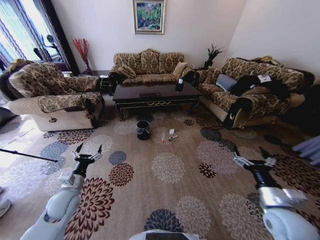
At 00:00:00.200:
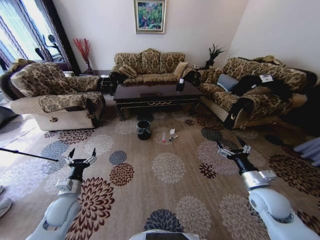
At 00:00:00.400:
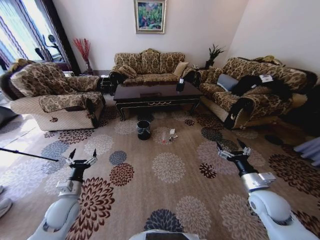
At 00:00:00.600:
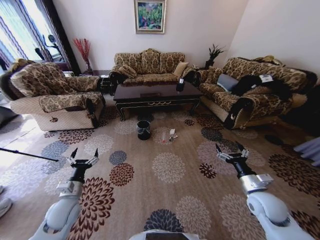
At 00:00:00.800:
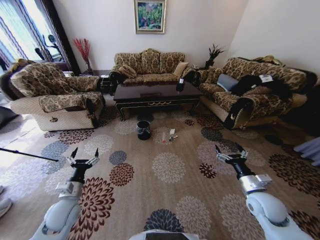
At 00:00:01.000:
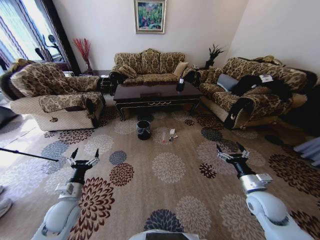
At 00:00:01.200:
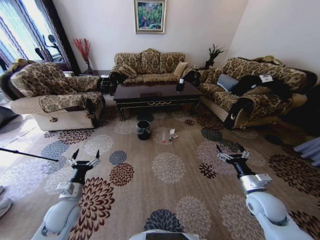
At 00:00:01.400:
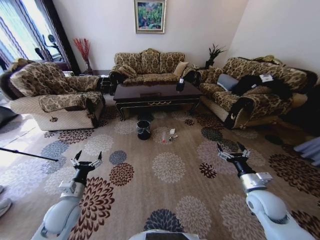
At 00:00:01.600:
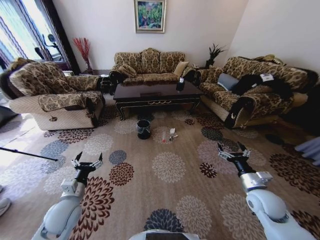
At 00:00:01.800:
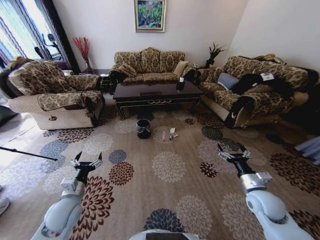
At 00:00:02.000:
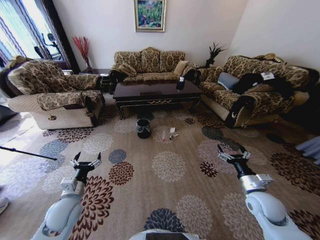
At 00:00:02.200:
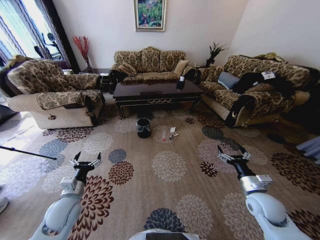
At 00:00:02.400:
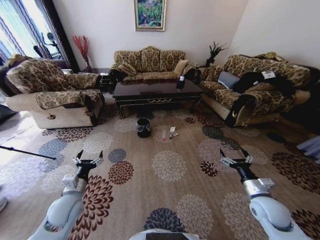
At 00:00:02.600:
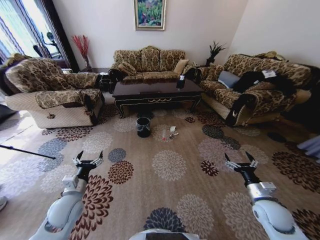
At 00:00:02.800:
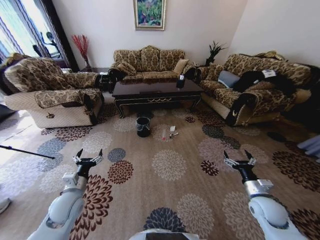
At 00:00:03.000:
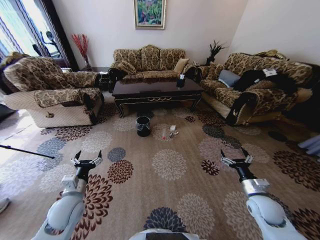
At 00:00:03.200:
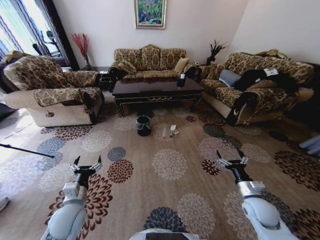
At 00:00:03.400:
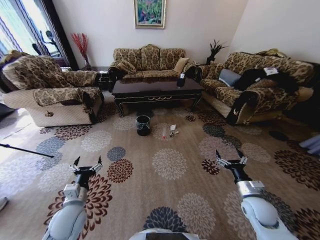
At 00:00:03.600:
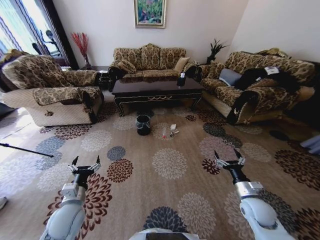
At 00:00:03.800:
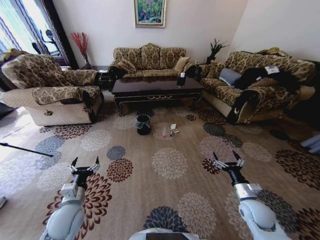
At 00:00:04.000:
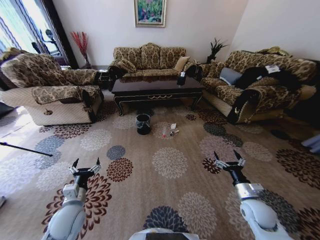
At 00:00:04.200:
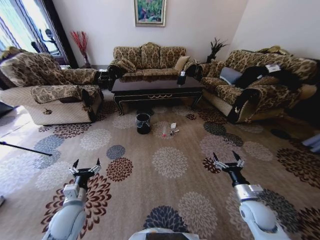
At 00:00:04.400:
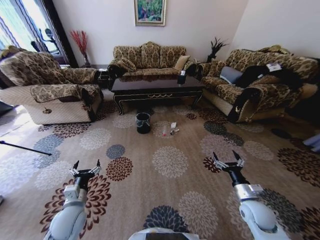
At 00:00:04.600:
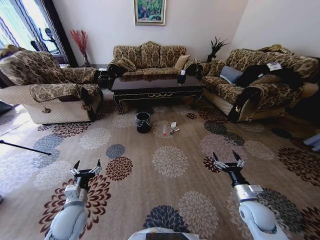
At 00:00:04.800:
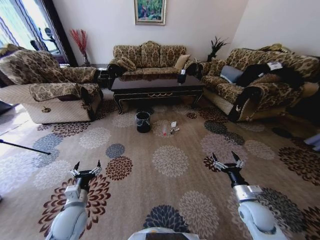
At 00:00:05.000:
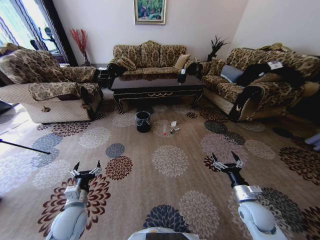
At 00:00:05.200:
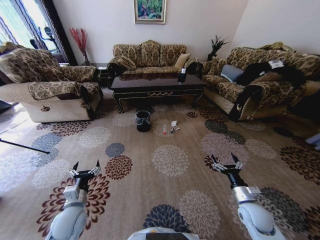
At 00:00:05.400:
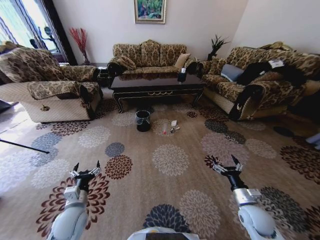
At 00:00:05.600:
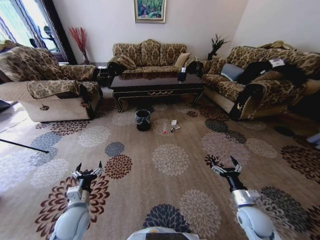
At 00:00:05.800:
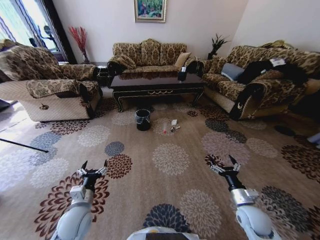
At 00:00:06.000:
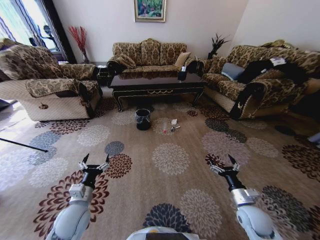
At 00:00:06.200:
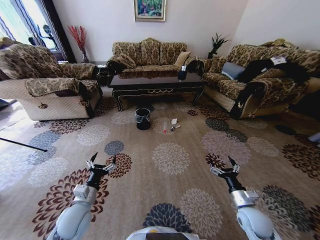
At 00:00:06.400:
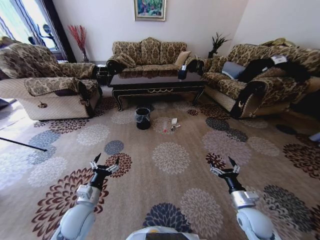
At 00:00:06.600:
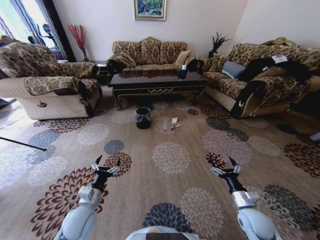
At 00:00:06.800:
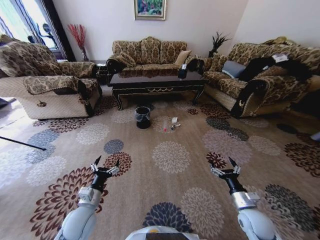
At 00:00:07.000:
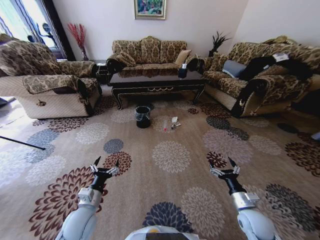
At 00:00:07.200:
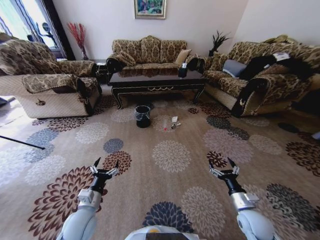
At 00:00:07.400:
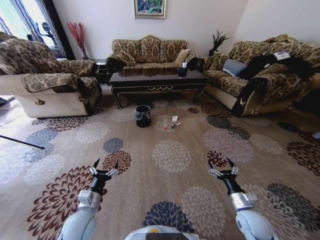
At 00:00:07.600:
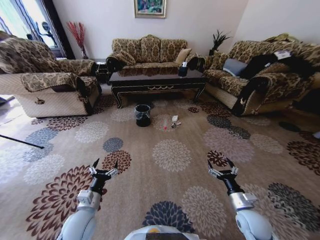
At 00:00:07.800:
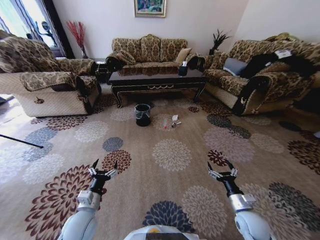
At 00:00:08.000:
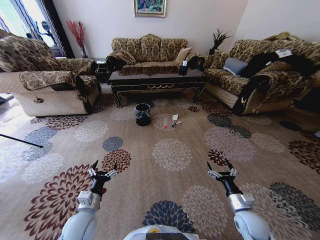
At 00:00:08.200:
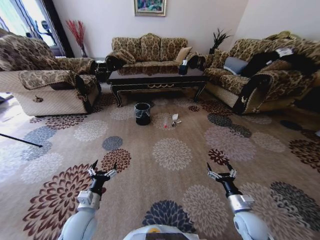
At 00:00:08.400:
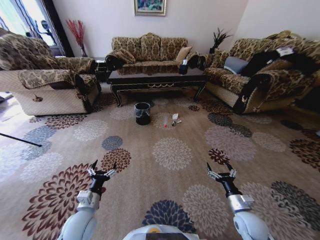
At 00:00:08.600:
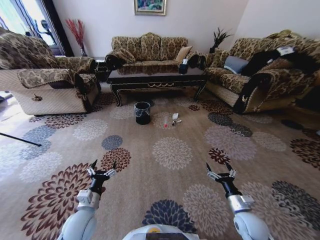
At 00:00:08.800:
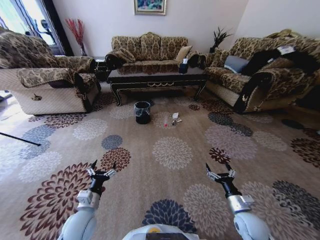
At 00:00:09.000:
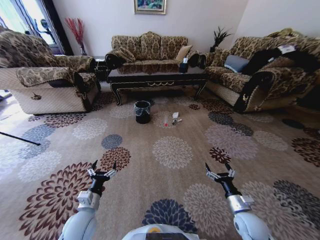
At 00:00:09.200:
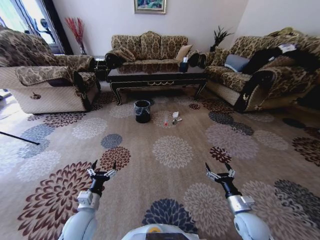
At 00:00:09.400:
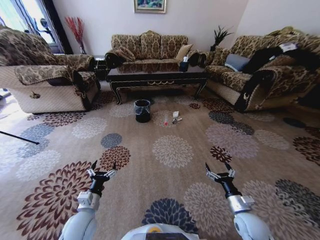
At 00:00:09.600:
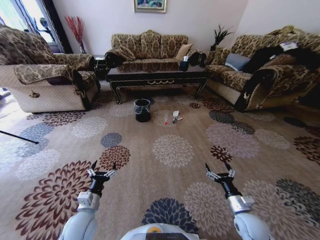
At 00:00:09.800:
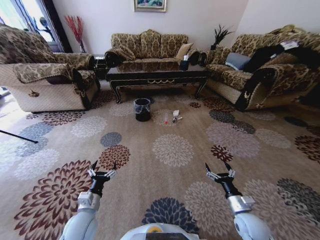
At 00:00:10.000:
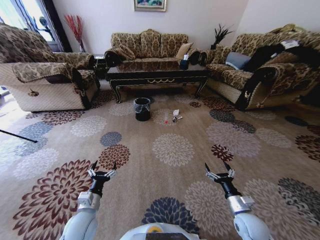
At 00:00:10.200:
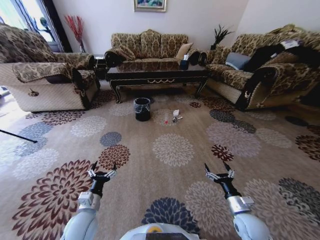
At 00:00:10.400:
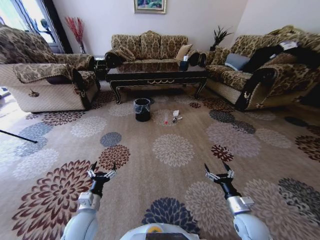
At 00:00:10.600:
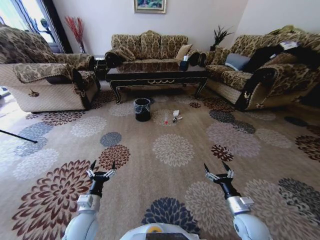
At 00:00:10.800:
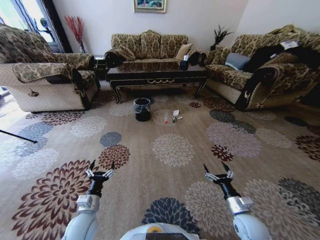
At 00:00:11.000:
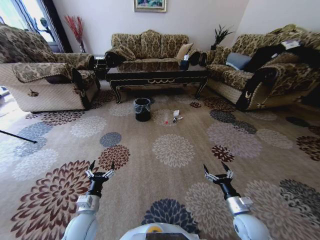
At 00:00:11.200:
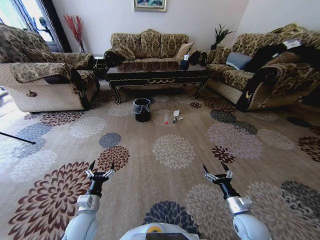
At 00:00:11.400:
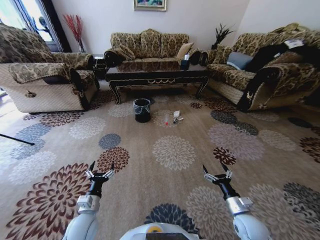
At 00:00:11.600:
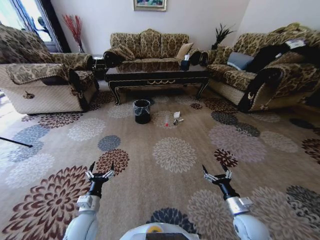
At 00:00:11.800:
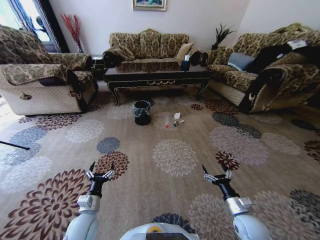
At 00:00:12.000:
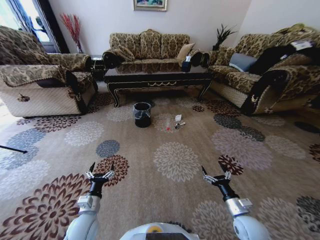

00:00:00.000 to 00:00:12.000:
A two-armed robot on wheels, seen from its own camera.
Task of the whole recording: Move to the front of the table and pick up the trash from the floor, then place it into the trash bin.
00:00:09.000 to 00:00:10.400: Neither gripper changes place.

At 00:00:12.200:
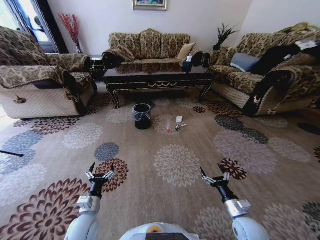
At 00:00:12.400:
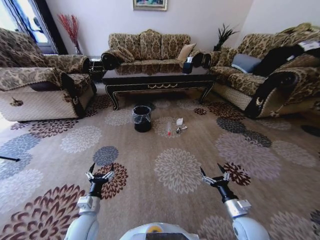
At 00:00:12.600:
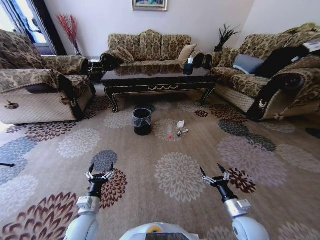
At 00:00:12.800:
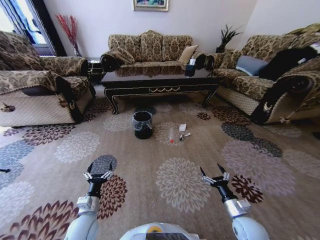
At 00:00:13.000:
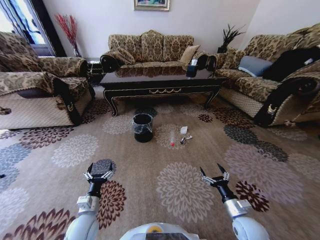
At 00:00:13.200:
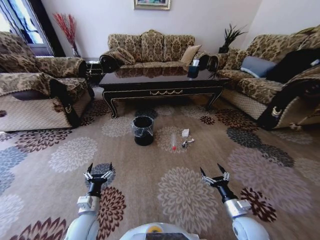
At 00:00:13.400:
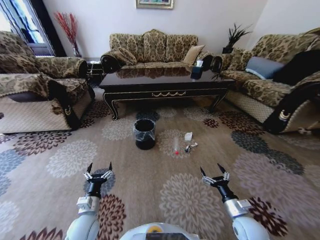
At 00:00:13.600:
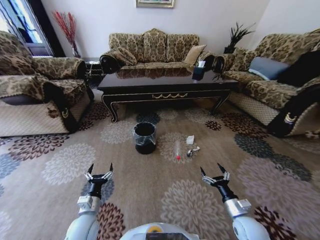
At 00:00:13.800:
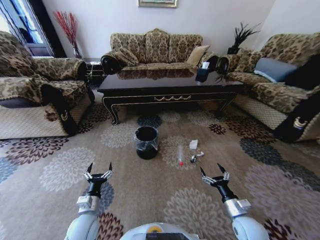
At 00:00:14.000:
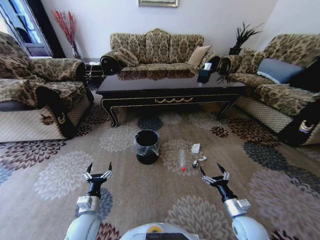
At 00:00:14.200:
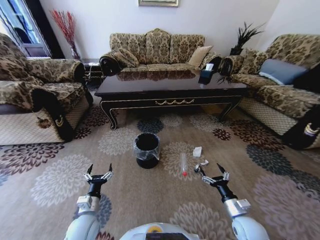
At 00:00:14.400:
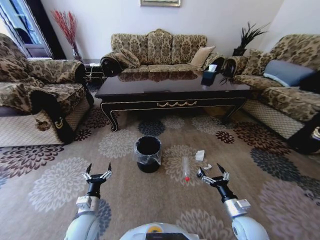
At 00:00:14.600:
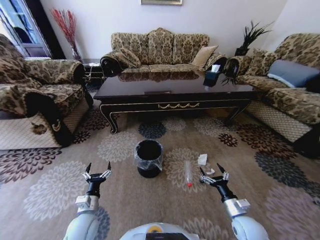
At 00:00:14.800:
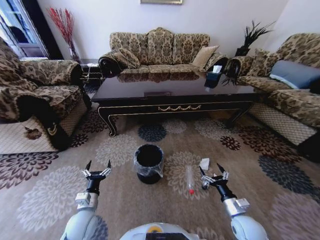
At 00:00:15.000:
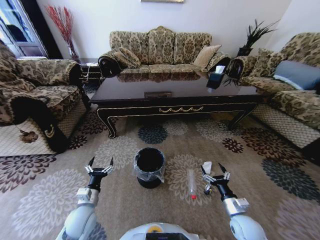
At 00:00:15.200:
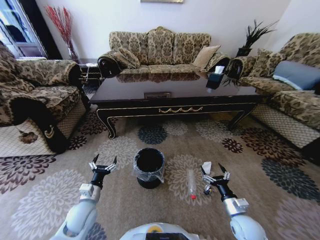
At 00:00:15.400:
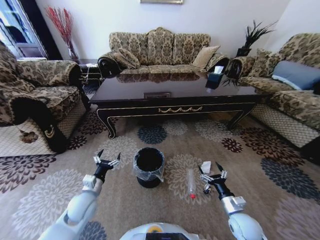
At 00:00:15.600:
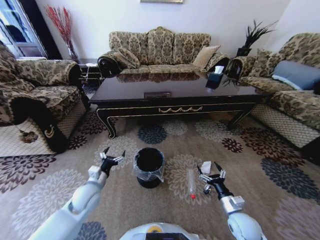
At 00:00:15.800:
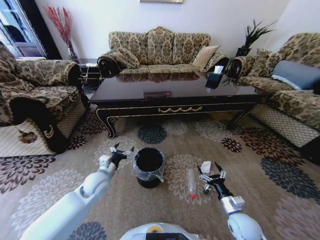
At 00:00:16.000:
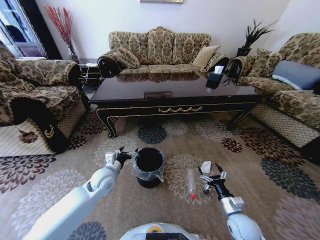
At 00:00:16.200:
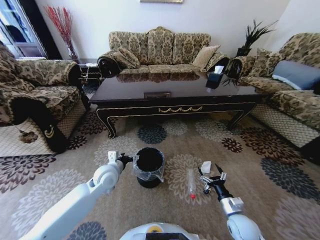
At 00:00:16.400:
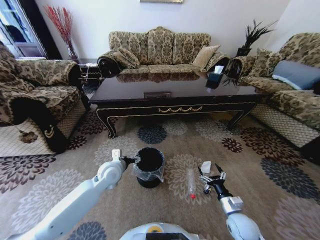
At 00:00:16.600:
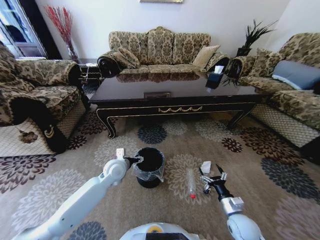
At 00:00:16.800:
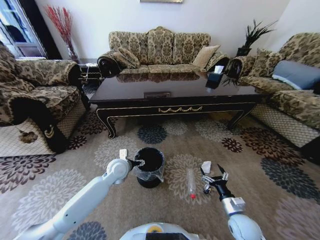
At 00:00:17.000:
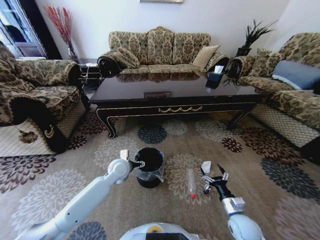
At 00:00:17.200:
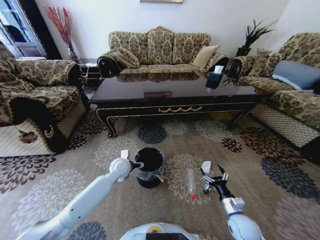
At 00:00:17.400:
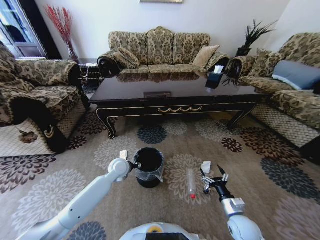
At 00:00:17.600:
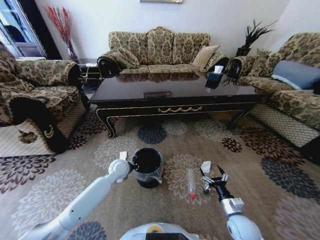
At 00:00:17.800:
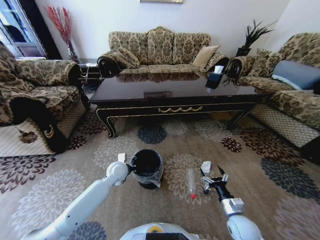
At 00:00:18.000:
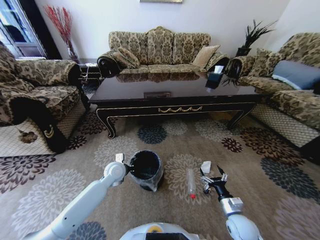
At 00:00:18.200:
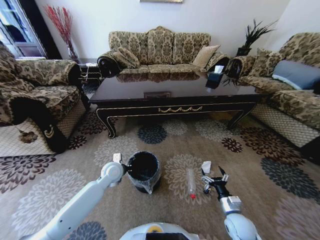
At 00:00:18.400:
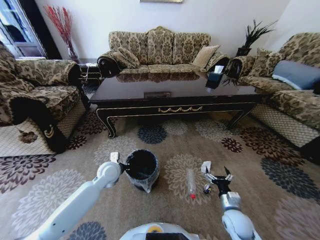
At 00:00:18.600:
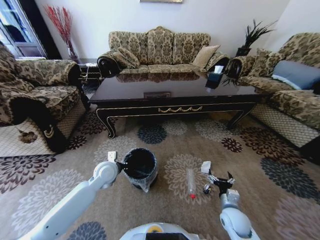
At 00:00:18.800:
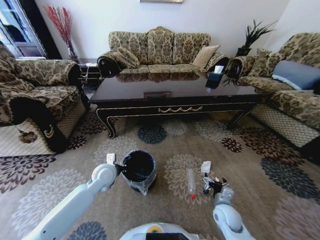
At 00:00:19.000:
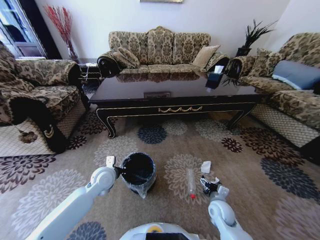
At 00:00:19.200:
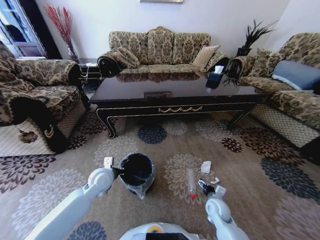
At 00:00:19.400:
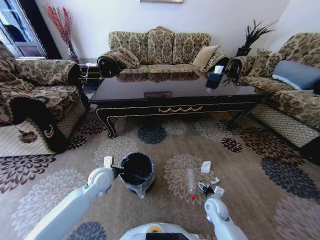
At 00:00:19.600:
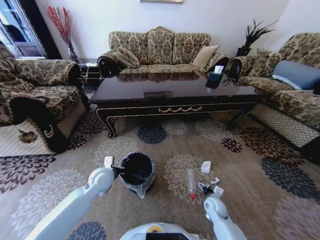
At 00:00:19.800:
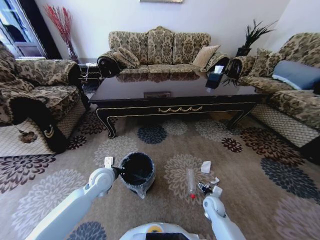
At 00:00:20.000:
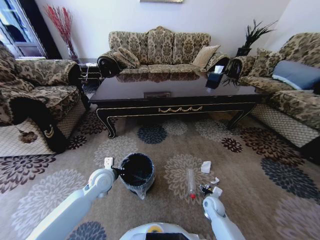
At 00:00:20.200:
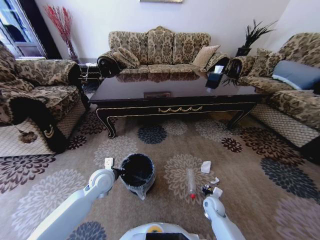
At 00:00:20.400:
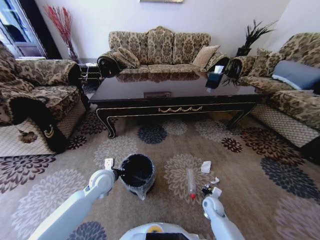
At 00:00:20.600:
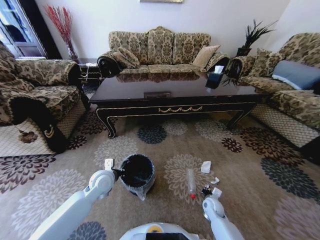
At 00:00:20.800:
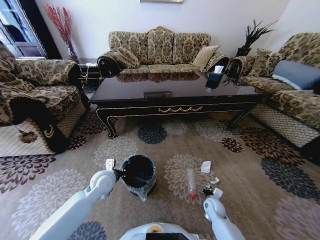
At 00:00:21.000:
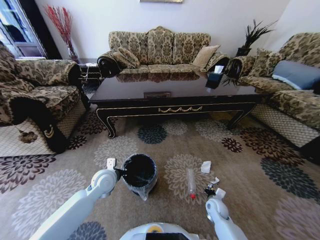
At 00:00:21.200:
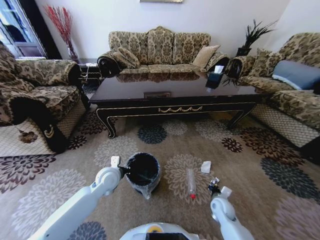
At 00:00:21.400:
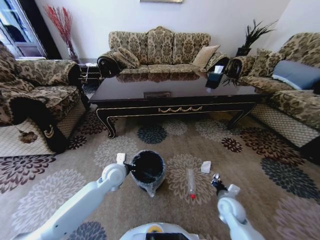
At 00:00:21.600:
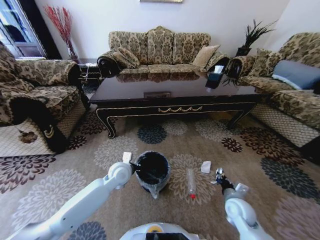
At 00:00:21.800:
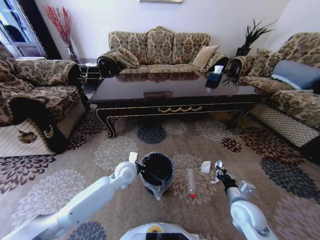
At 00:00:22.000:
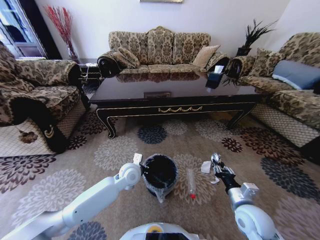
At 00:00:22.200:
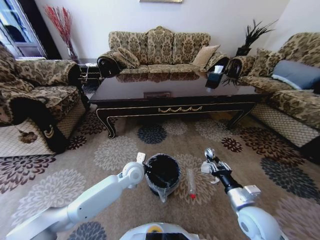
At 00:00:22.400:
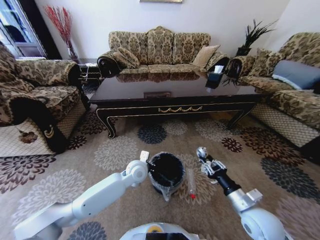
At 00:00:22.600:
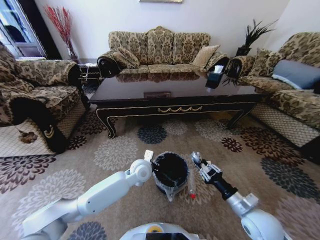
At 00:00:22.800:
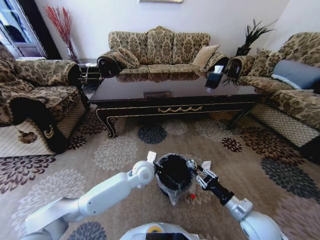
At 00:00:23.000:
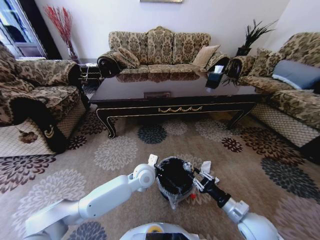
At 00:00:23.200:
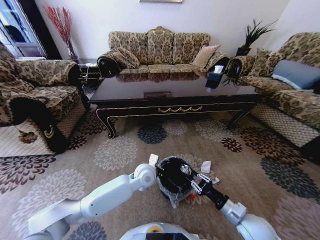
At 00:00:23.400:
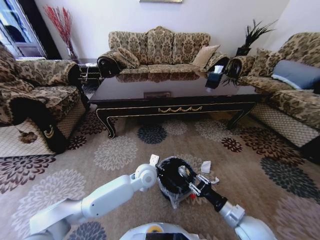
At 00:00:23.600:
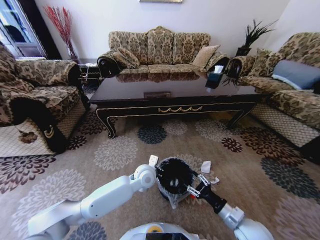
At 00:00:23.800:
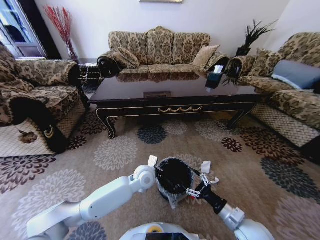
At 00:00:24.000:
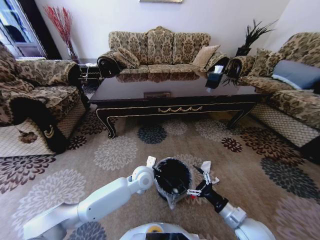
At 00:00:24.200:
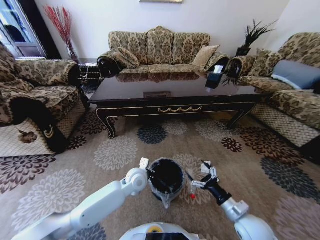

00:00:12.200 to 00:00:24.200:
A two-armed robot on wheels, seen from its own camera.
Task of the whole recording: Move to the front of the table and pick up the trash from the floor, then place it into the trash bin.
00:00:15.200 to 00:00:16.600: The left gripper is displaced forward, to the right and upward by roughly 20 cm.
00:00:16.600 to 00:00:18.200: The left gripper closes its fingers.
00:00:18.200 to 00:00:19.800: The left gripper moves about 5 cm. Meanwhile the right gripper moves forward and downward, some 10 cm.
00:00:19.800 to 00:00:21.200: The right gripper closes its fingers.
00:00:21.200 to 00:00:22.600: The left gripper moves to the right, roughly 15 cm. The right gripper shifts some 20 cm upward and backward.
00:00:22.600 to 00:00:24.200: The right gripper opens its fingers.
